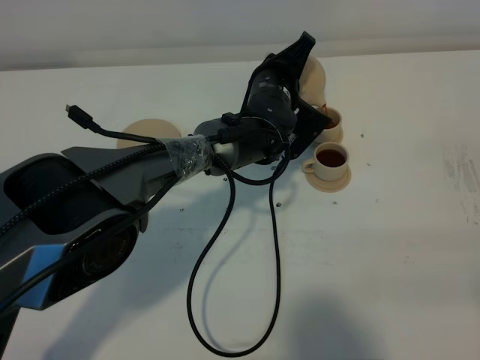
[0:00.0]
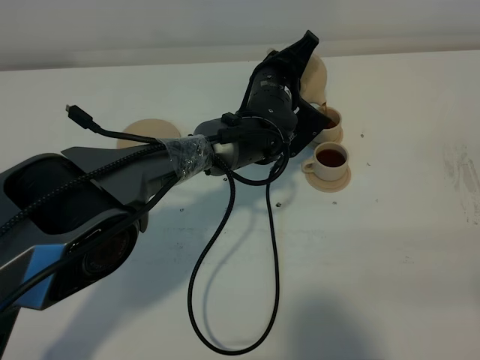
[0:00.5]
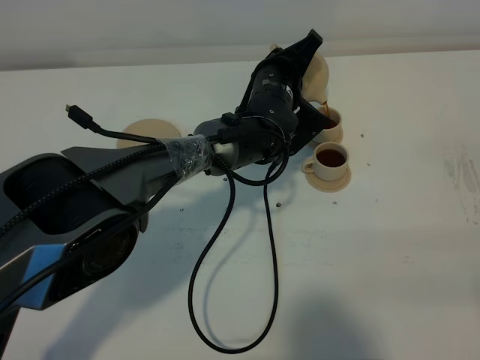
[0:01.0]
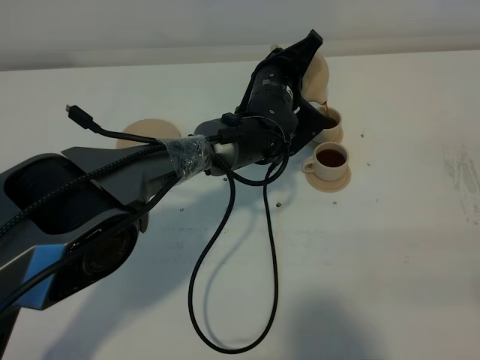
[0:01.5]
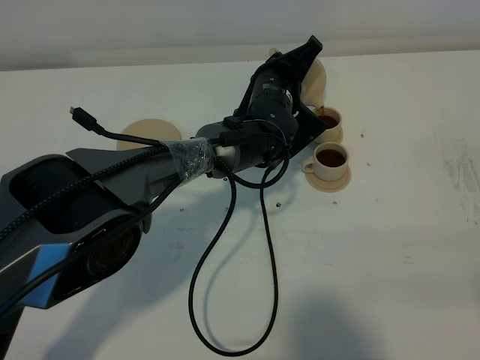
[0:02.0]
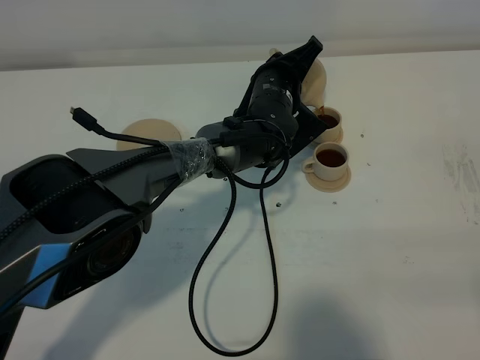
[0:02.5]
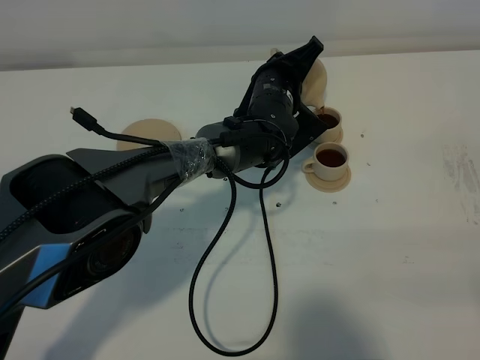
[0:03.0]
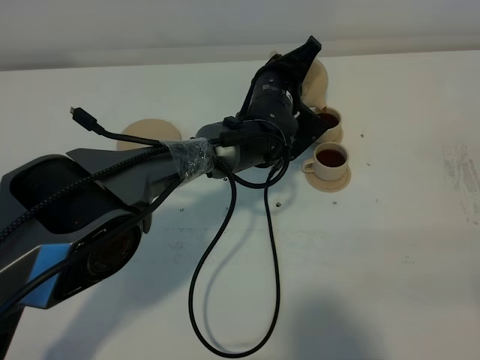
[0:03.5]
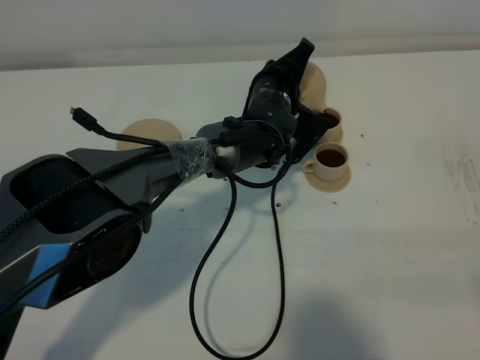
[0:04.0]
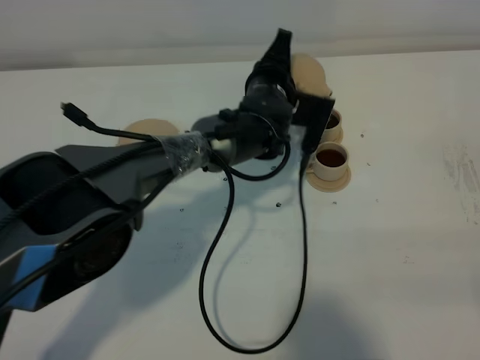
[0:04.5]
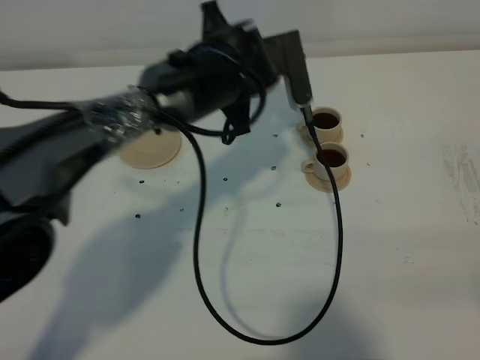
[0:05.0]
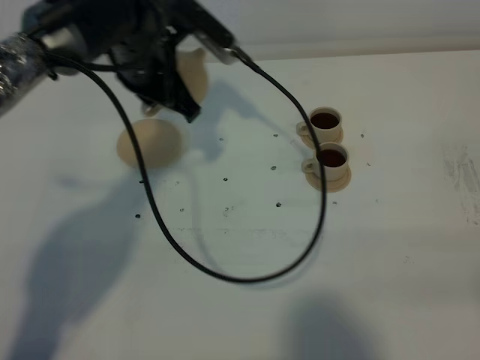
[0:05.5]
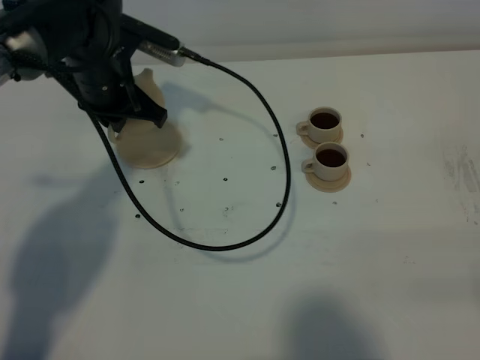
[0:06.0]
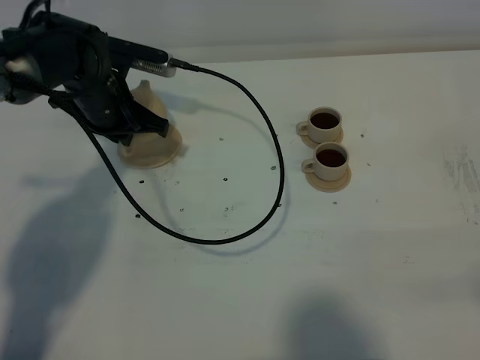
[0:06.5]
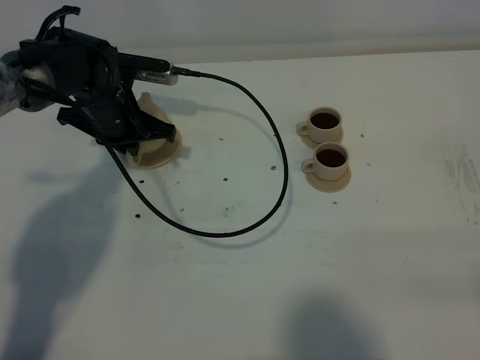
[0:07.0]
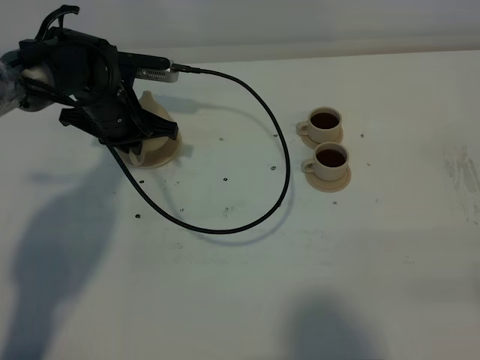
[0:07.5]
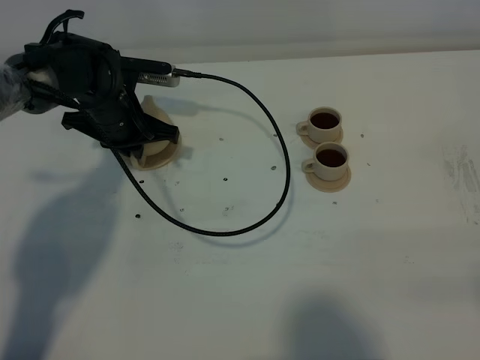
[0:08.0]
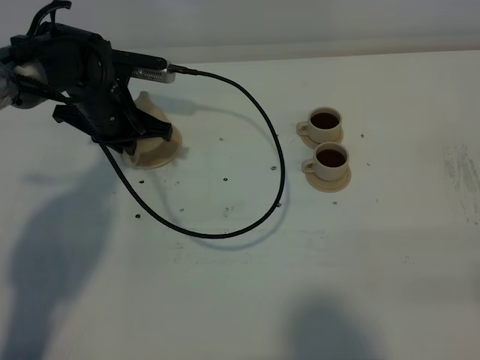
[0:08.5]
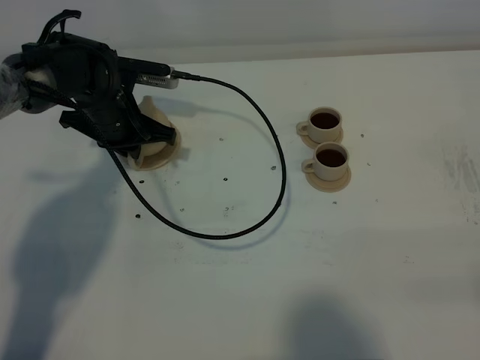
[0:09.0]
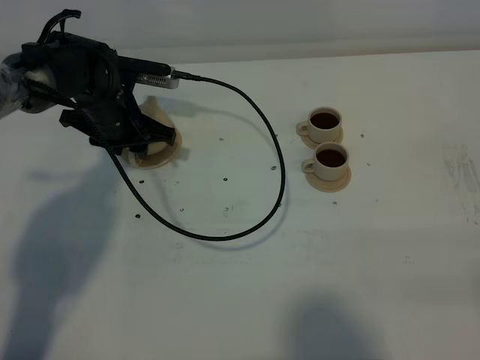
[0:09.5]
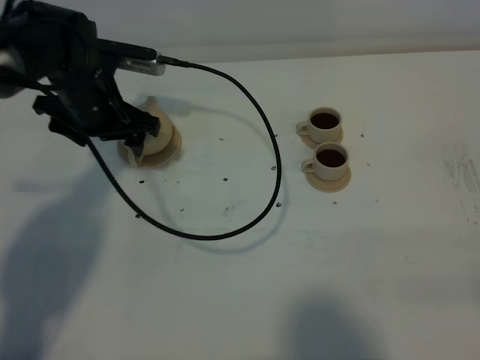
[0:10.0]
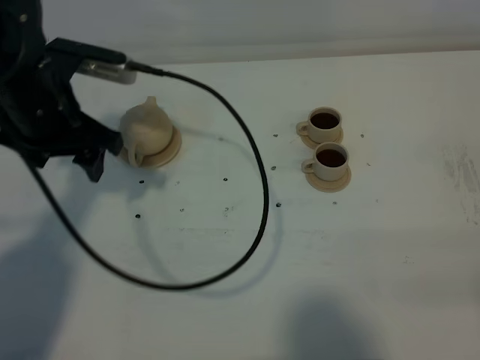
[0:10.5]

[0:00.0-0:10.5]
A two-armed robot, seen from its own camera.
Task of the whole recording: grasp the brown teapot and pour the tea into the two brown teacups one by one, put the brown teapot back in its original place.
Step, 0:00.0 to 0:04.5: Pour tea into the teacup with the left gripper.
0:00.0 to 0:04.0: The grippers stay close to where they were, moving slightly.
0:04.0 to 0:06.5: The left gripper shifts approximately 20 cm to the left.
0:06.5 to 0:08.5: There are only small adjustments of the grippers.
0:08.5 to 0:10.5: The left gripper goes about 15 cm upward and backward, and opens up.

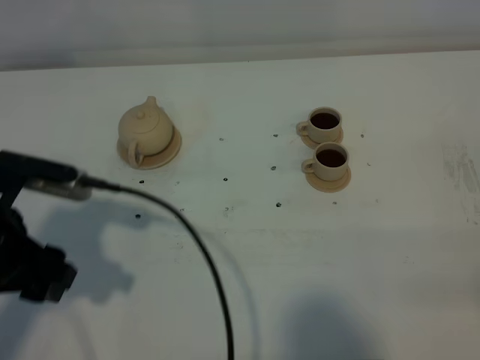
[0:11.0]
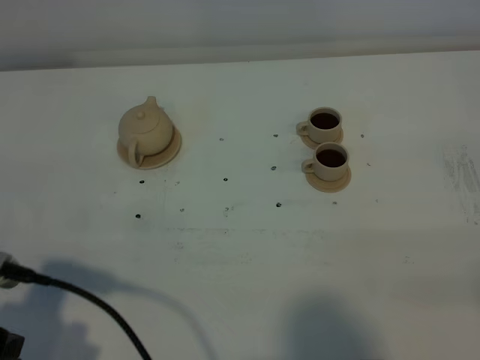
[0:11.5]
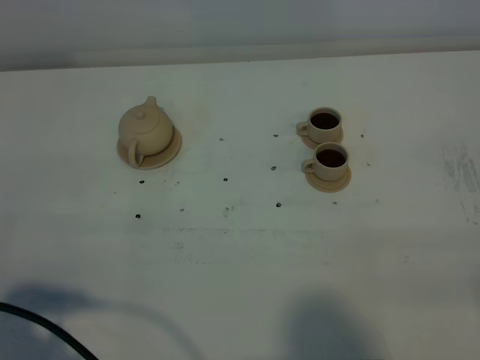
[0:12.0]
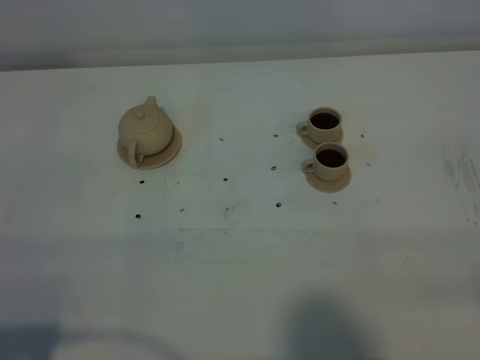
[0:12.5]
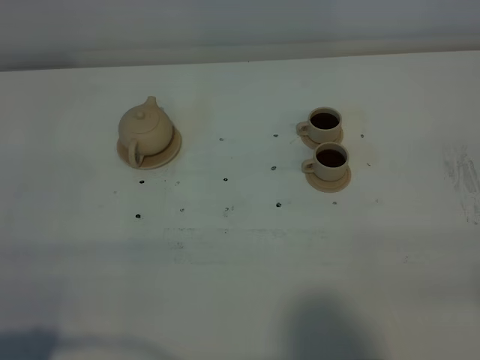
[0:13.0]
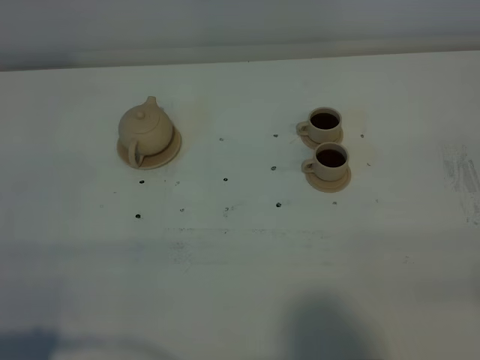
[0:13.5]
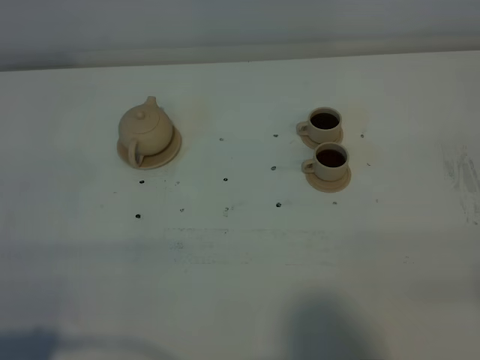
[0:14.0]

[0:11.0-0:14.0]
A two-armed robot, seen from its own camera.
Task of the whole recording: grasp the brown teapot and pour the tea into the two brown teacups one by one, put the brown teapot back in its original place.
0:11.0 to 0:12.5: The left gripper heads backward, covering some 20 cm.
0:12.5 to 0:14.0: The two grippers keep their place.

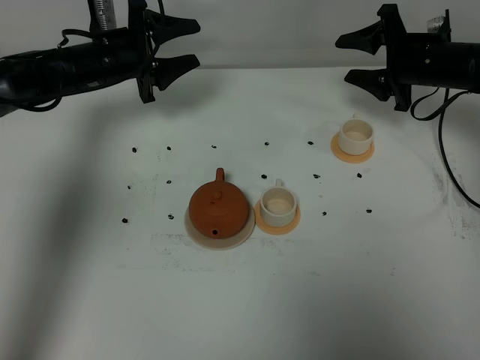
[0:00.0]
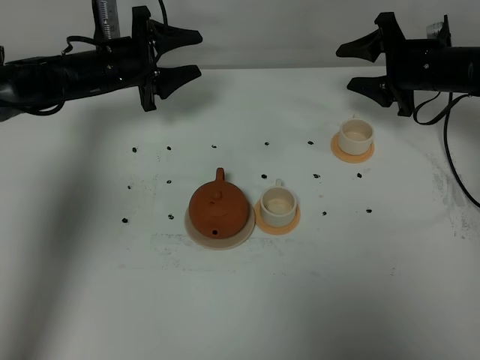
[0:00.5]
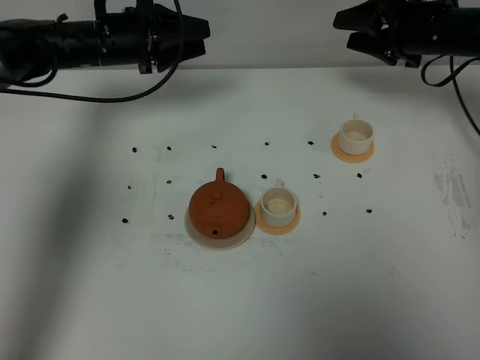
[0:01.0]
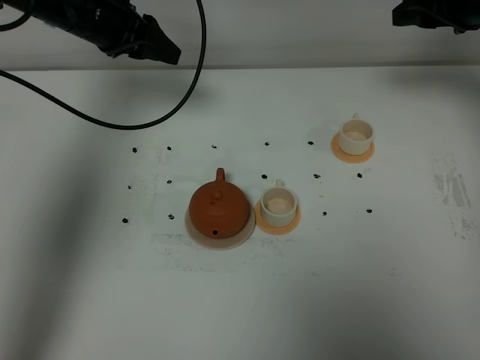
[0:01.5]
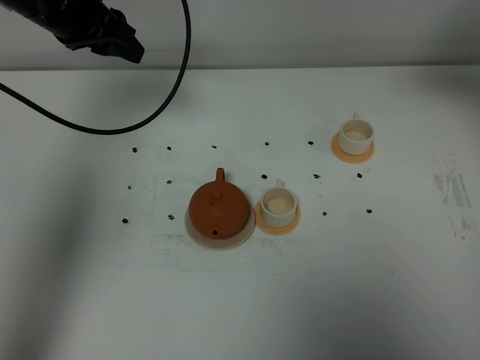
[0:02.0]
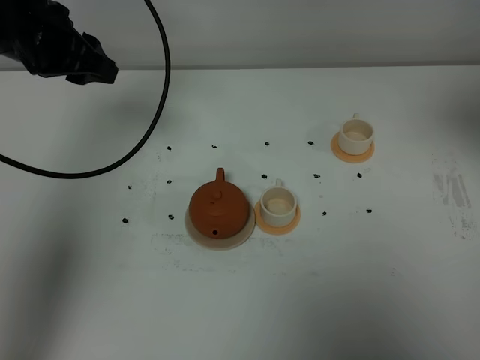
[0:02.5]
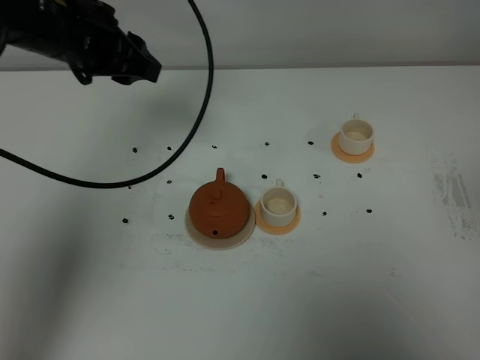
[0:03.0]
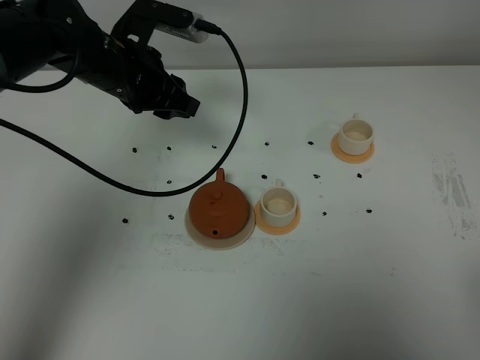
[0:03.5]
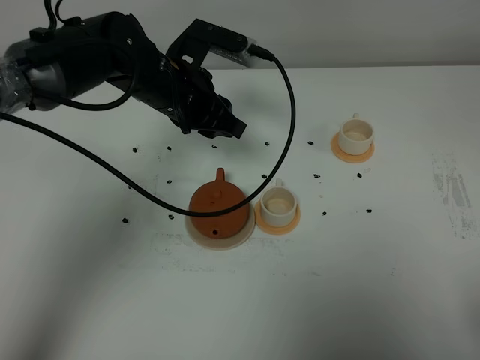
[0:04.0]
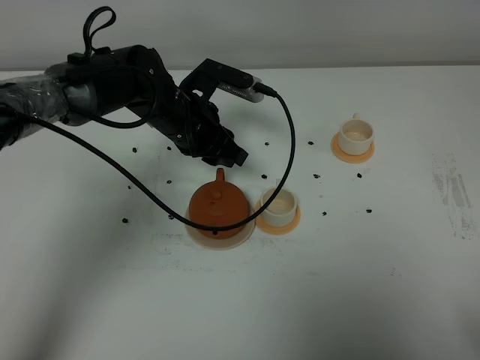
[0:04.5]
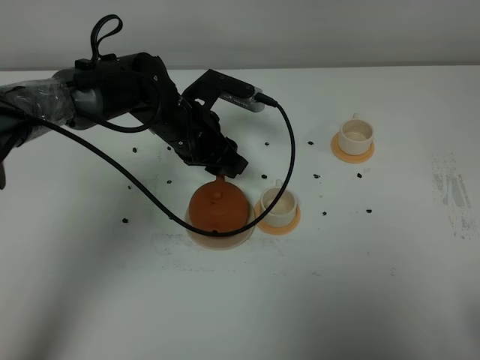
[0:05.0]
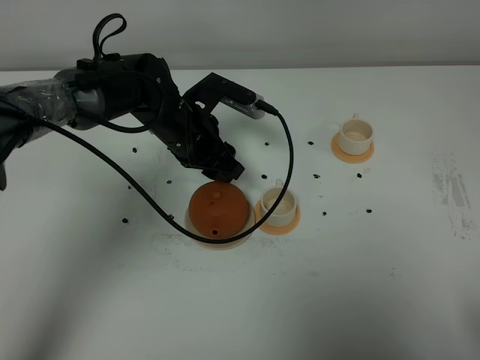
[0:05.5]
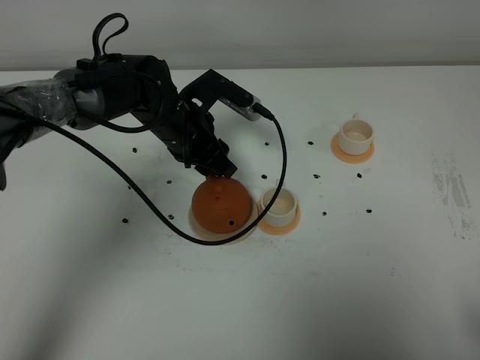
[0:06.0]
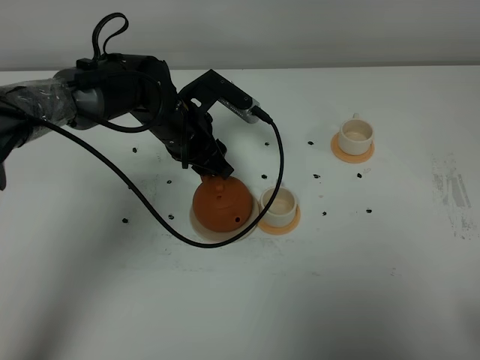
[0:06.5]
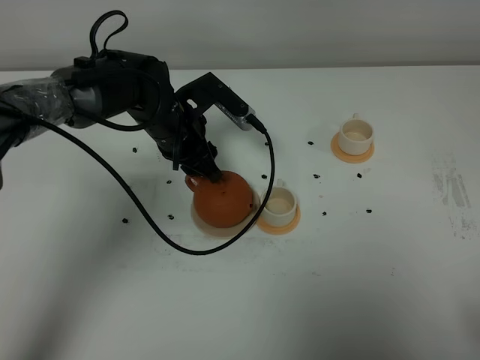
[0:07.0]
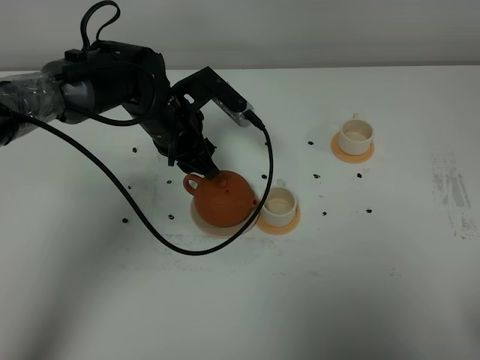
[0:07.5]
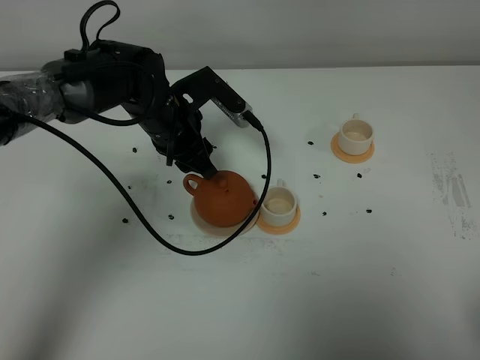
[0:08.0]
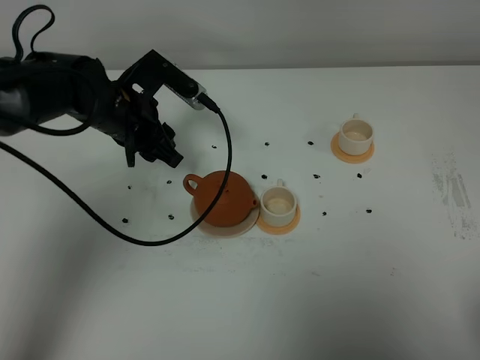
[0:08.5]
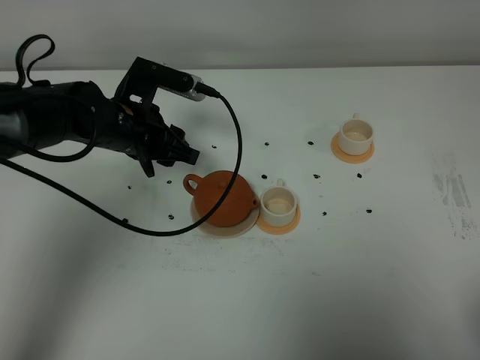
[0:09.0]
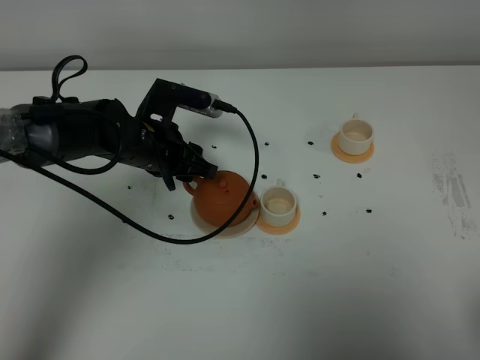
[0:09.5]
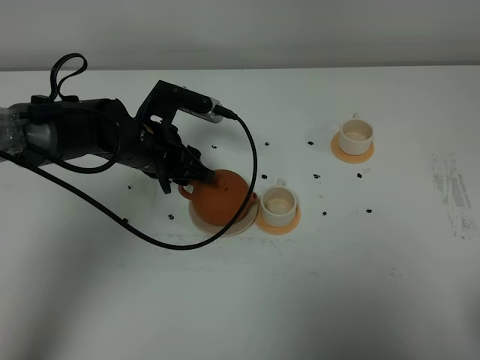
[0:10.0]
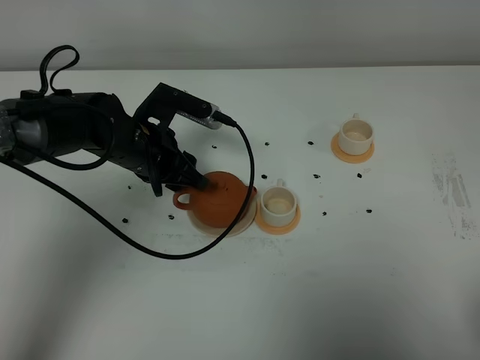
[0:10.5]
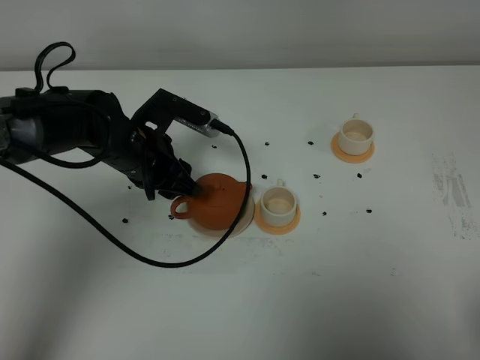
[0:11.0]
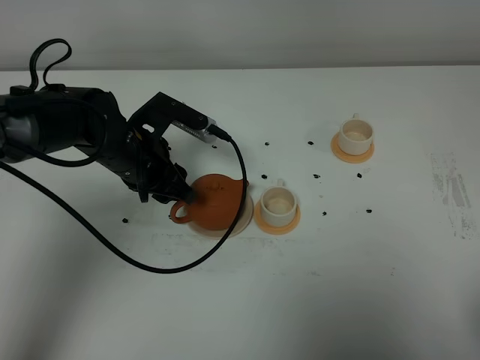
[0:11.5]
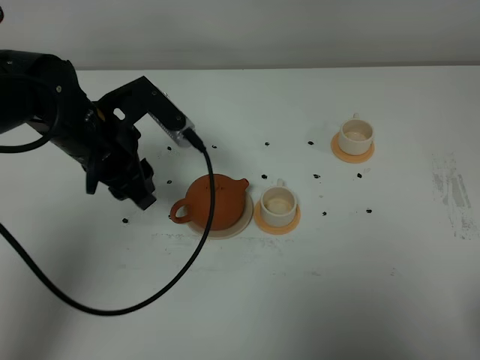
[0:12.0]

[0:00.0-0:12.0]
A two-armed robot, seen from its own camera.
Task of the whole recording: grasp the brown teapot and pour the tea into the two white teacups one by one, put the brown teapot back in its original place.
0:00.0 to 0:02.0: The right gripper moves upward and backward, roughly 25 cm. The left gripper shifts about 15 cm upward.
0:02.0 to 0:04.0: The right gripper shifts approximately 40 cm backward, while the left gripper is displaced to the right and downward by roughly 15 cm.
0:04.0 to 0:06.0: The left gripper heads downward, covering about 5 cm, and opens.
0:06.0 to 0:08.0: The right gripper closes.
0:08.0 to 0:10.0: The left gripper moves about 5 cm.
0:10.0 to 0:12.0: The left gripper goes about 5 cm upward.
